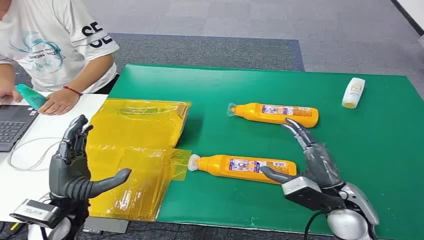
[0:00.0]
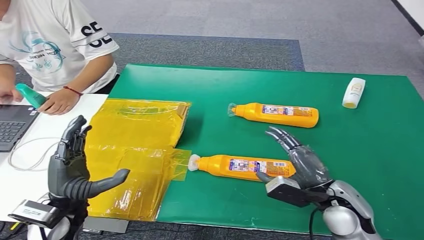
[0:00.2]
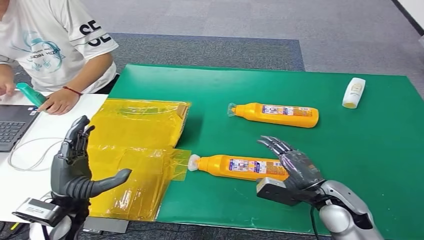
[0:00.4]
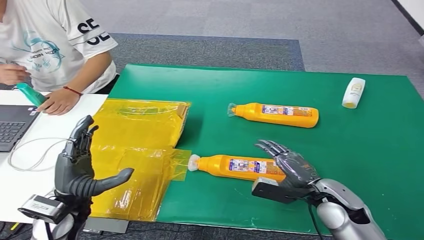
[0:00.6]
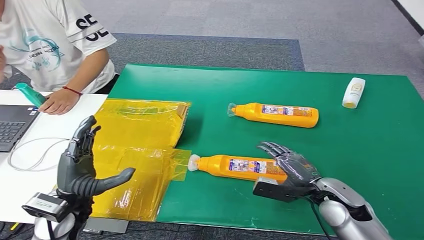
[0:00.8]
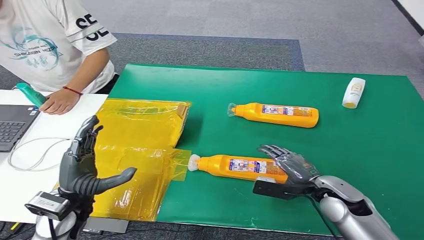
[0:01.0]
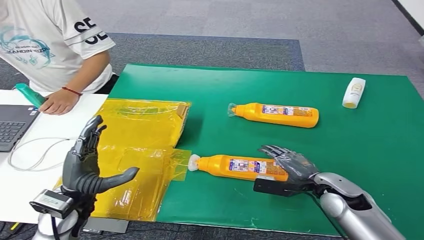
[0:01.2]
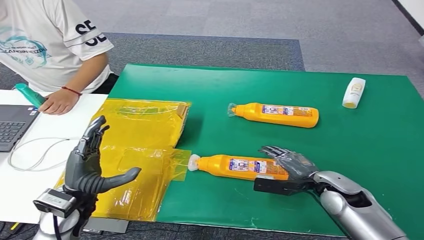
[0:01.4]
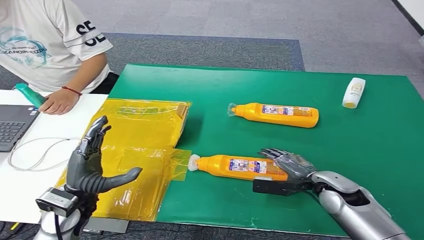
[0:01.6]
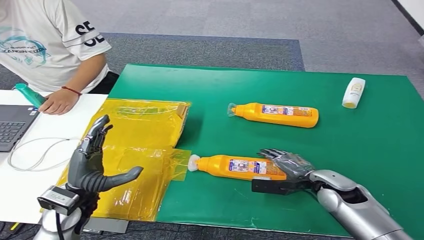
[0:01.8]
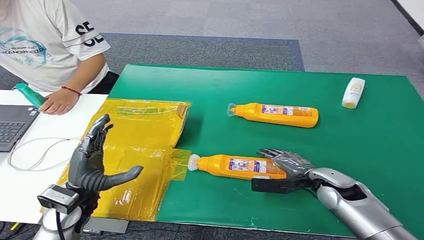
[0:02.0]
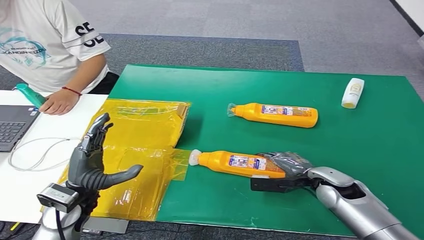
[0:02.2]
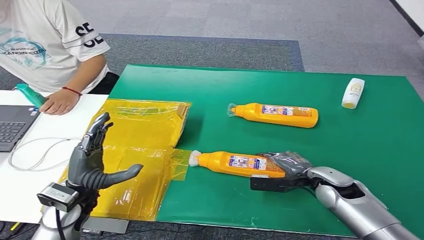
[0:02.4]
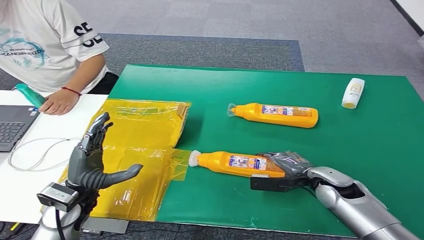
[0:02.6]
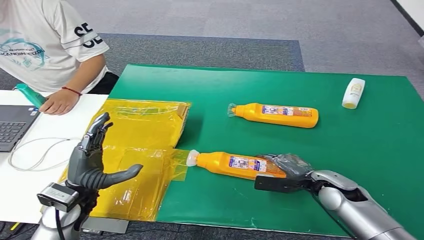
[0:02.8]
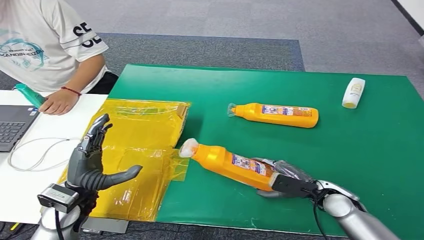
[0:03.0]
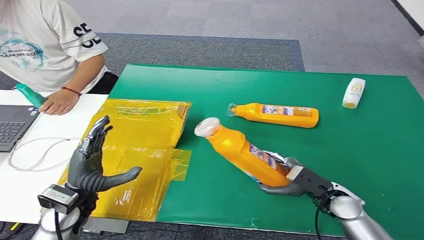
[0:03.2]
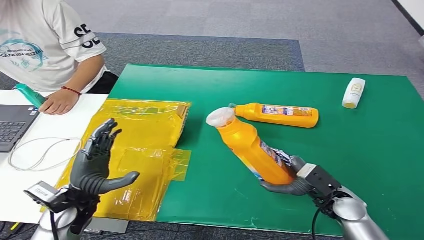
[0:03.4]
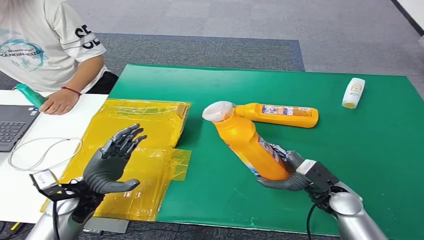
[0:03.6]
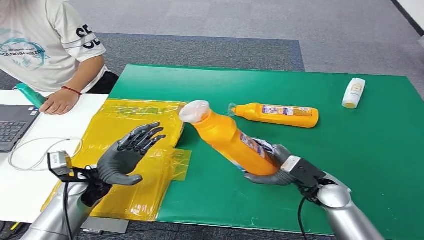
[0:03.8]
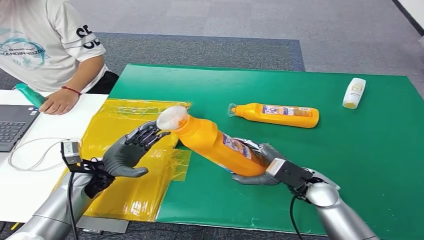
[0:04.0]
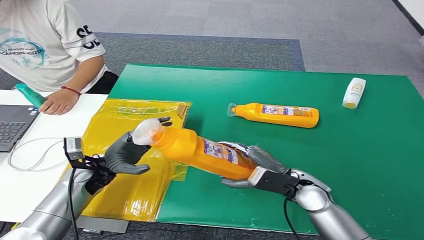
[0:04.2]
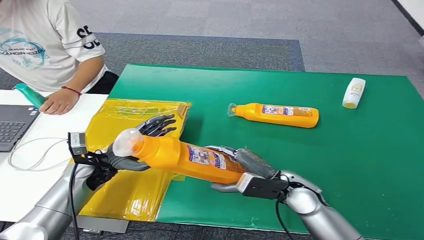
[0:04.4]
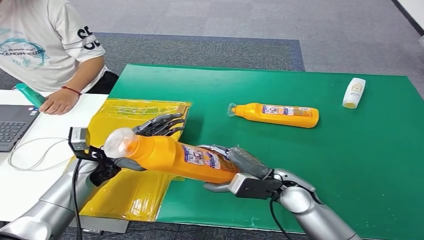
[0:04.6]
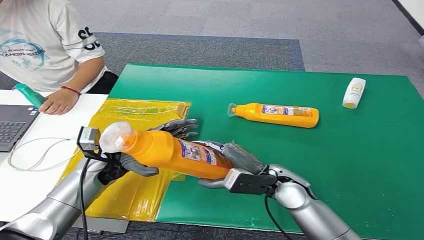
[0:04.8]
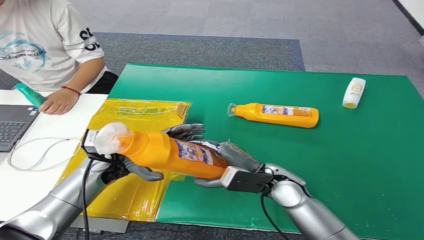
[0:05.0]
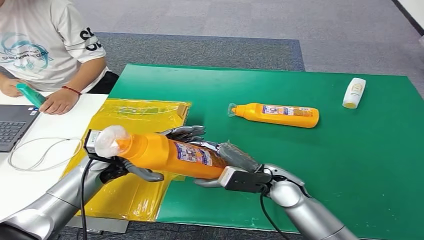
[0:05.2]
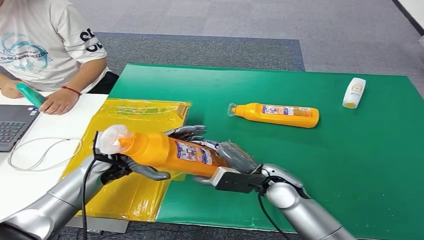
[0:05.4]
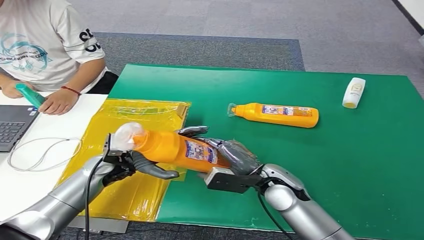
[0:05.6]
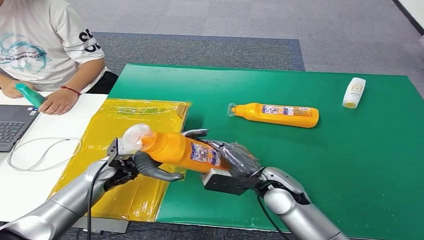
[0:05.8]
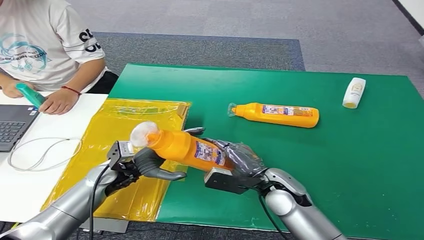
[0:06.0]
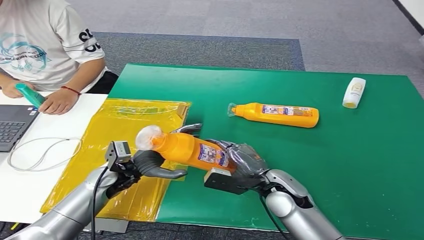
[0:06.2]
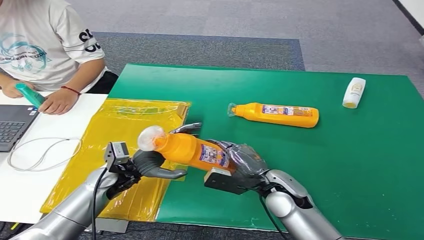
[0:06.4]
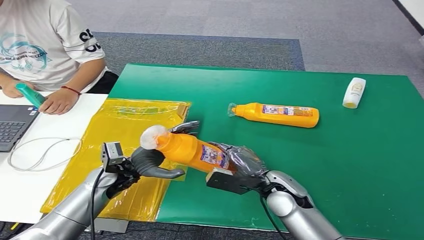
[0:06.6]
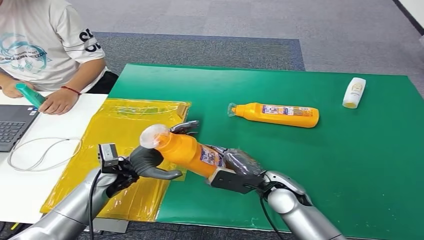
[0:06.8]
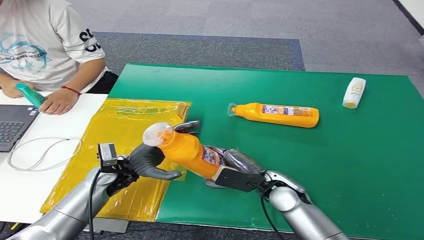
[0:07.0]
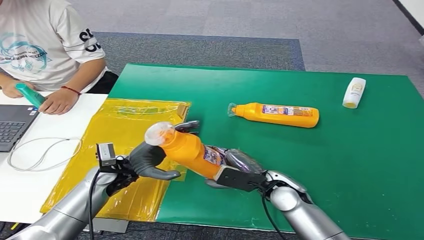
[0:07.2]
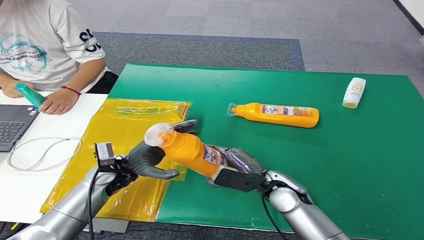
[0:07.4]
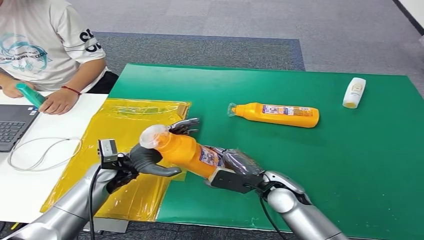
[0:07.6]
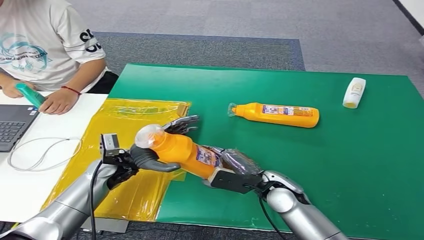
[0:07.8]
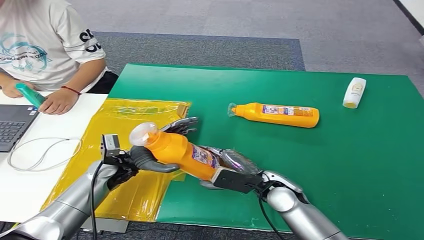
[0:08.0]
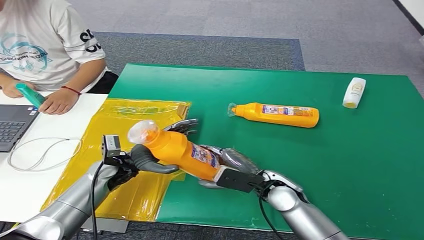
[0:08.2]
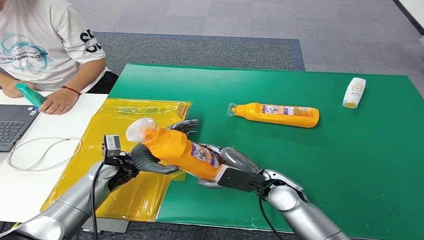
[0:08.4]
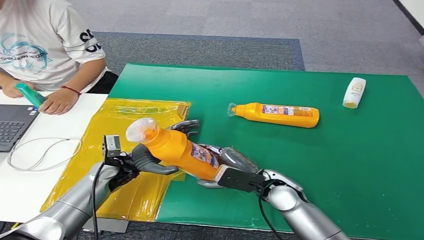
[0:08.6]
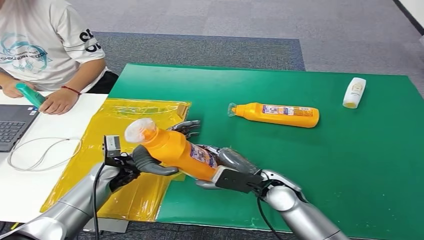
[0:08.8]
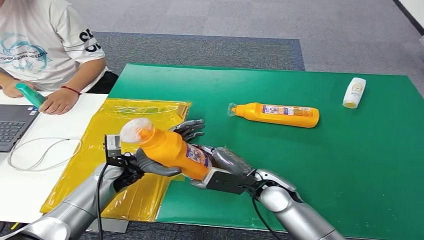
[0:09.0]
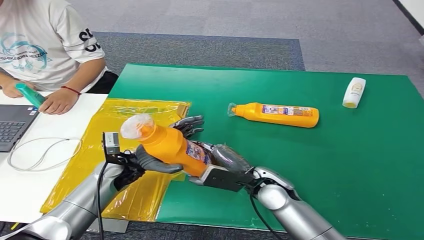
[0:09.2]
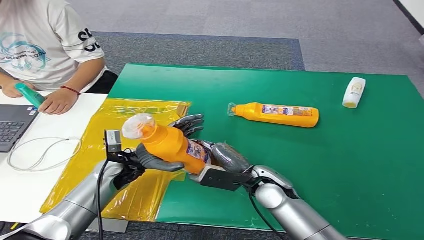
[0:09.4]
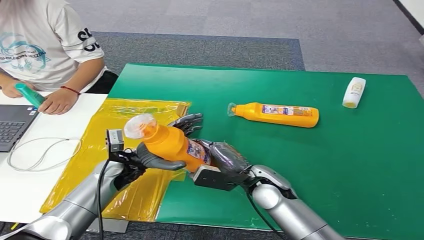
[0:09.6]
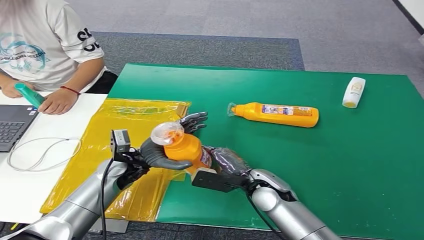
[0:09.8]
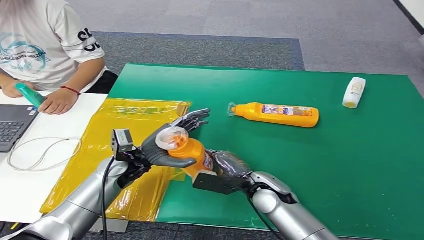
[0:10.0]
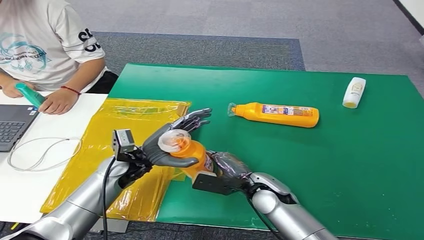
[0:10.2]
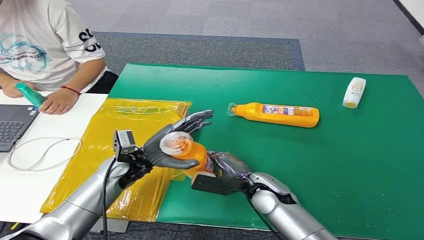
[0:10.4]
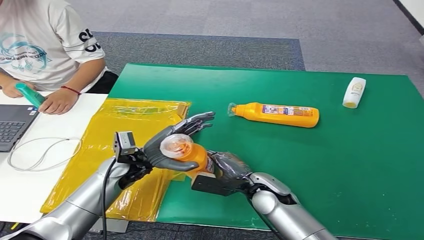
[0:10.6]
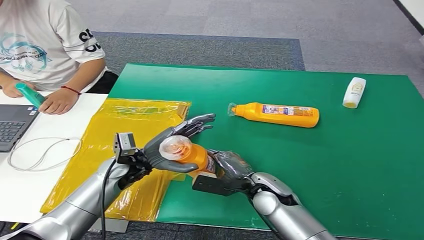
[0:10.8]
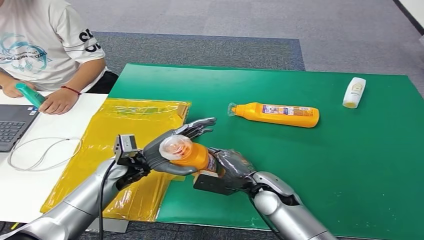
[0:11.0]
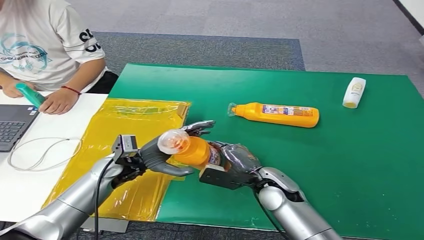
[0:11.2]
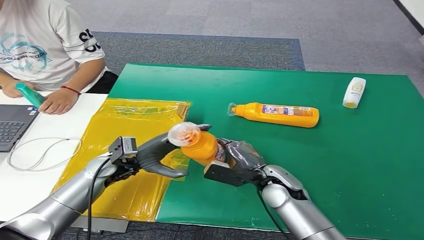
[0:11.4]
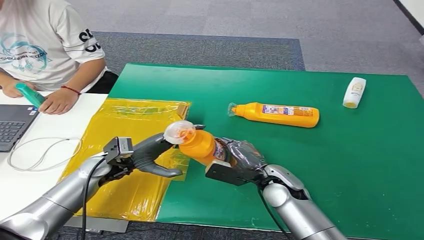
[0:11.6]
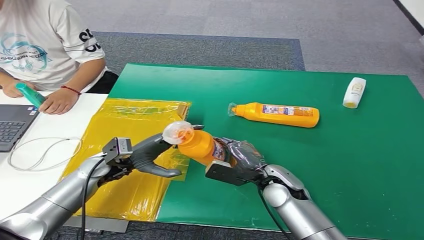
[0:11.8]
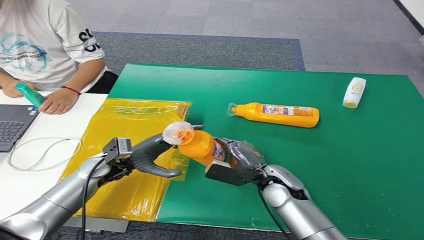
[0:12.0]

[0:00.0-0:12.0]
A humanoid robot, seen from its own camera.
Step, 0:00.0 to 0:03.4: Pick up the bottle from the table.
0:03.0 to 0:04.4: The right hand shifts roughly 10 cm to the left and upward; the left hand travels forward by approximately 10 cm.
0:06.0 to 0:10.4: The hands stay close to where they were, moving slightly.
0:10.4 to 0:12.0: The left hand shifts some 5 cm to the left.

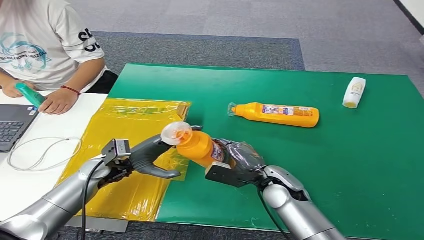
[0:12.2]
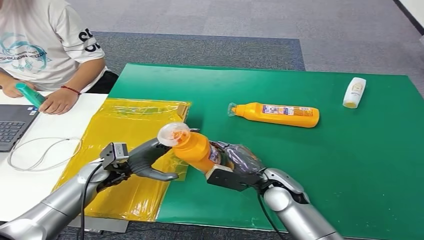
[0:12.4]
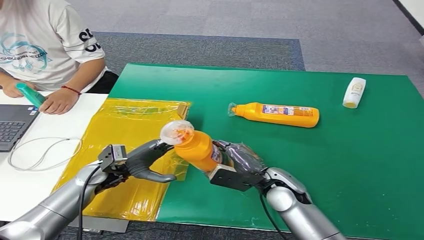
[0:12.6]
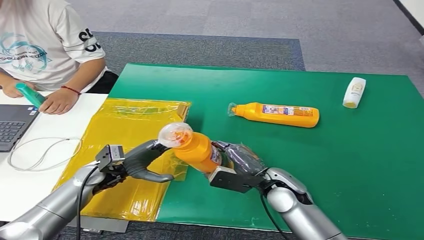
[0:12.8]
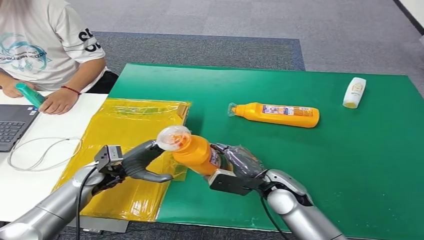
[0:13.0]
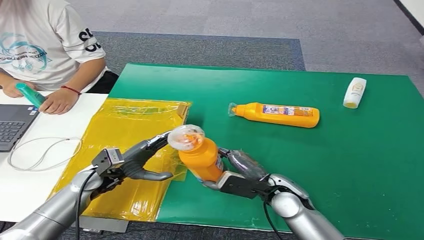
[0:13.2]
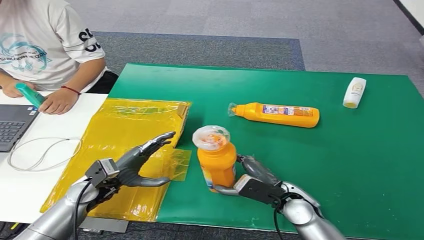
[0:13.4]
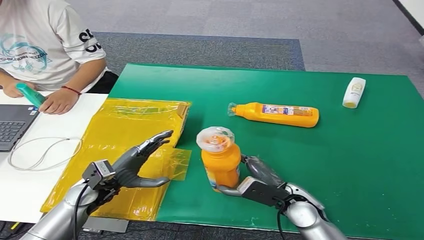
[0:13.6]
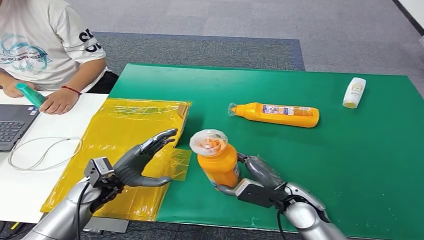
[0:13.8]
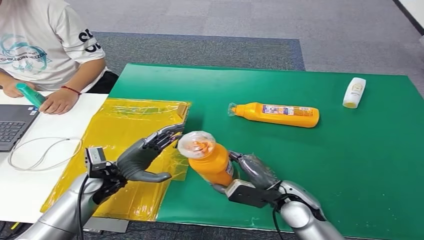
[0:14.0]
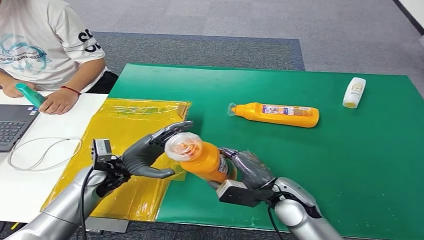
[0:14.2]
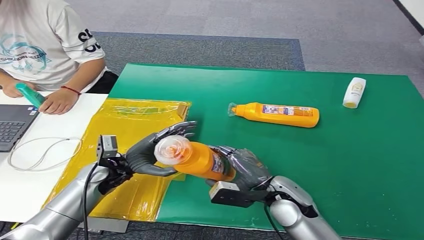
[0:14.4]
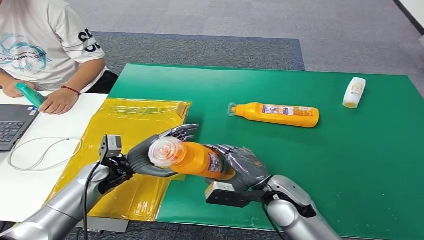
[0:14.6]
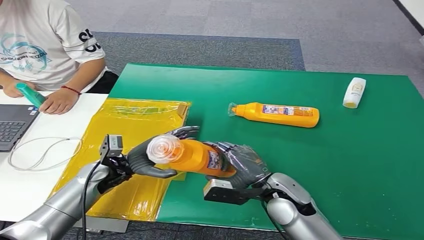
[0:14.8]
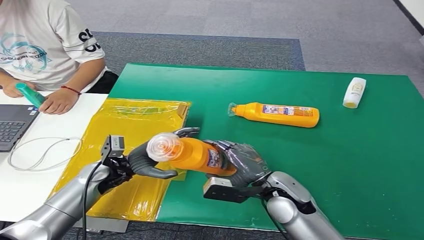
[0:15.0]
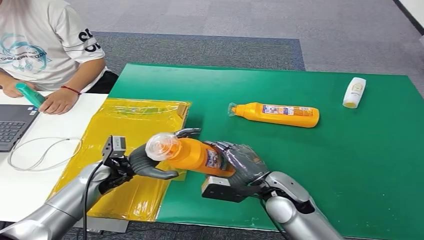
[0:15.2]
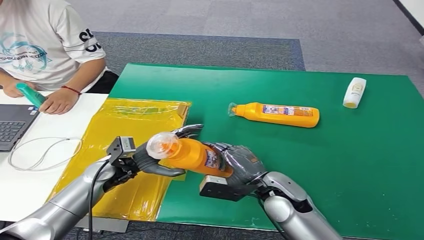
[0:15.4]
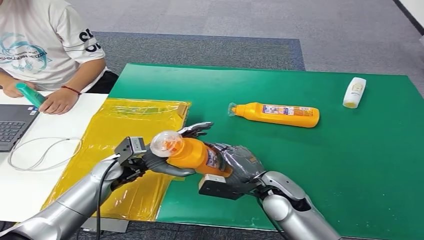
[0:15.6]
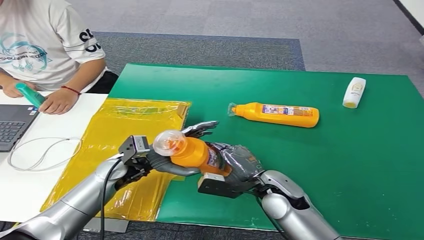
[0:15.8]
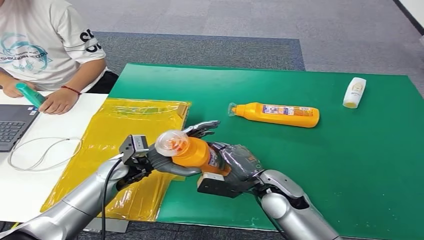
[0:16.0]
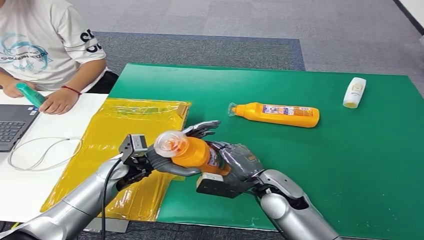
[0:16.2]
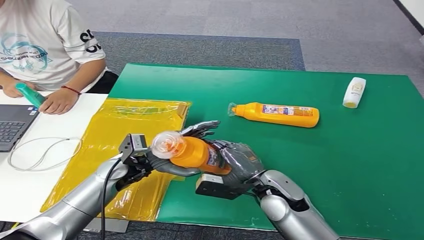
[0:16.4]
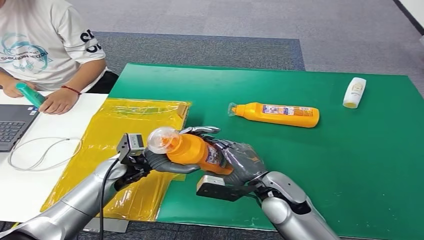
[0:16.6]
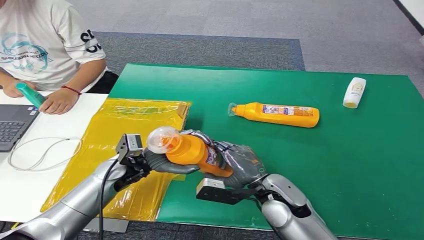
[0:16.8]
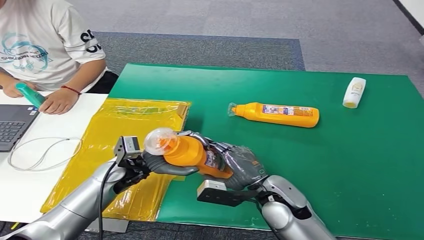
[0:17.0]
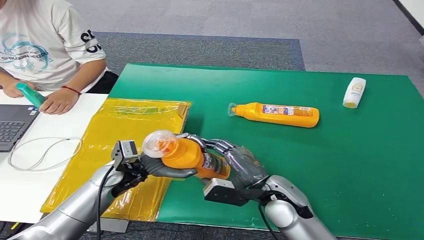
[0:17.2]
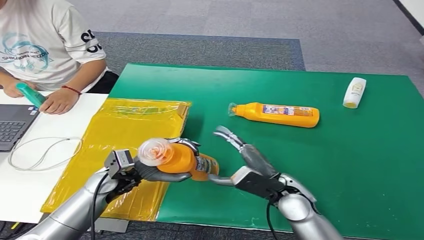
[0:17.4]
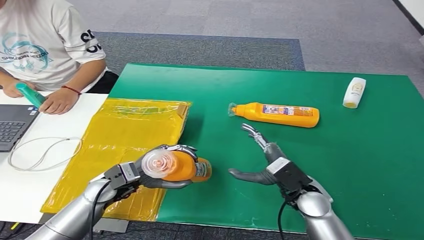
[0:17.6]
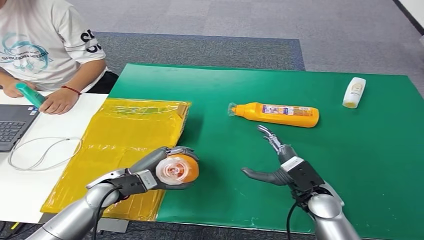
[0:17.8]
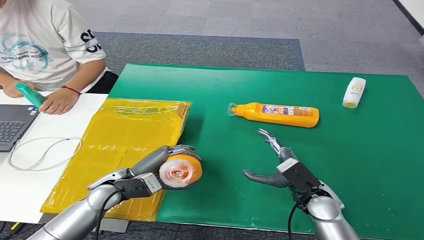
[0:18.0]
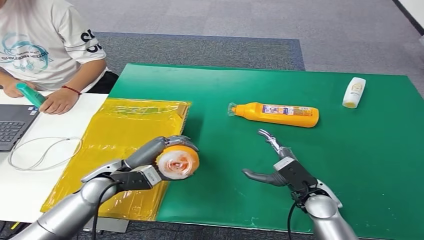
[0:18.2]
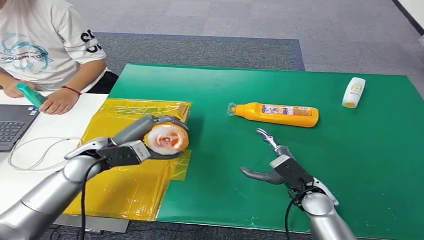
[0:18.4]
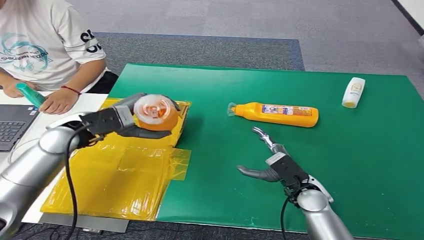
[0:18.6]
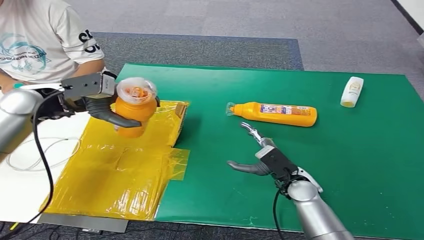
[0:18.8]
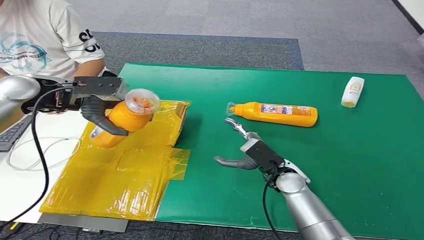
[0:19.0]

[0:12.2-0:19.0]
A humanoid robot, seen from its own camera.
0:12.2 to 0:13.6: The right hand changes place by roughly 5 cm, while the left hand heads backward, covering about 5 cm.
0:13.6 to 0:15.0: The left hand shifts by roughly 5 cm, while the right hand changes place by some 5 cm.
0:15.0 to 0:16.2: The left hand shifts by about 5 cm.
0:16.2 to 0:17.6: The left hand moves some 5 cm. The right hand goes approximately 5 cm to the right.
